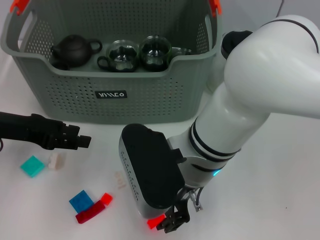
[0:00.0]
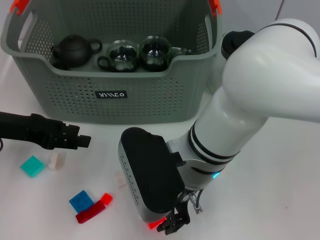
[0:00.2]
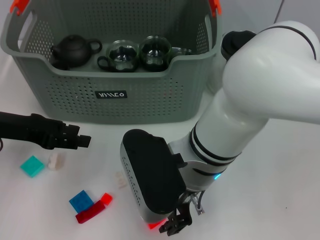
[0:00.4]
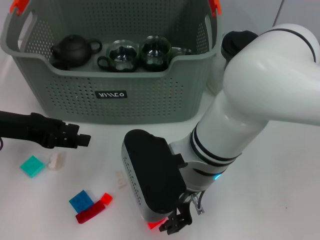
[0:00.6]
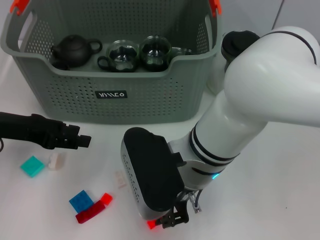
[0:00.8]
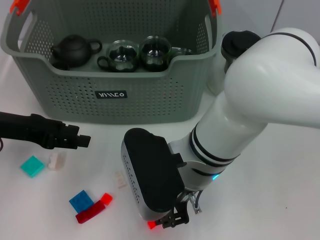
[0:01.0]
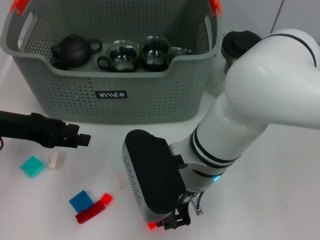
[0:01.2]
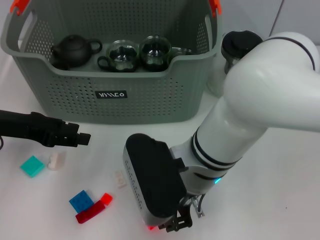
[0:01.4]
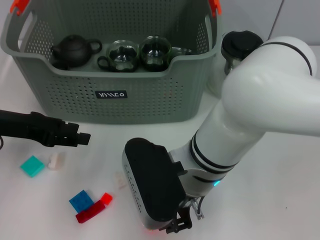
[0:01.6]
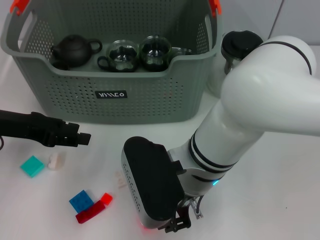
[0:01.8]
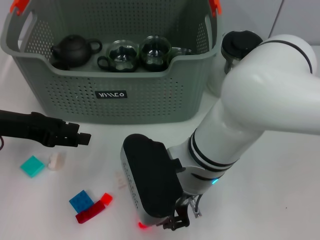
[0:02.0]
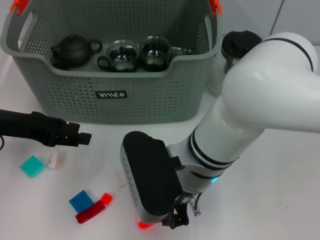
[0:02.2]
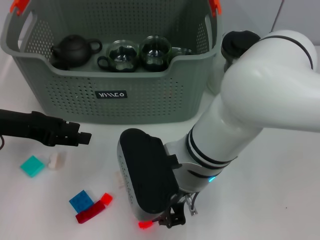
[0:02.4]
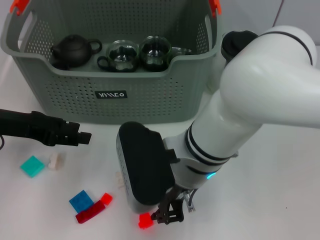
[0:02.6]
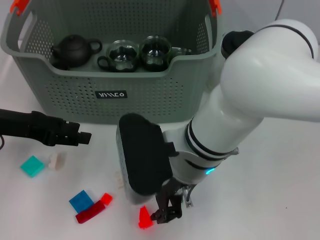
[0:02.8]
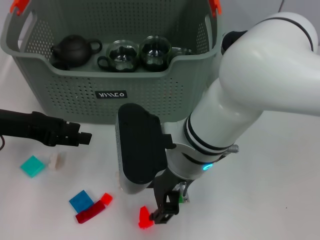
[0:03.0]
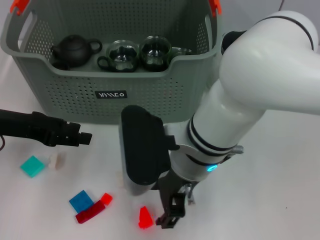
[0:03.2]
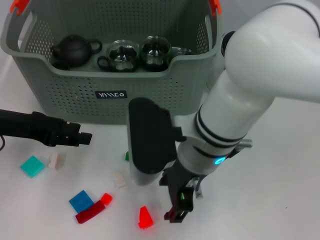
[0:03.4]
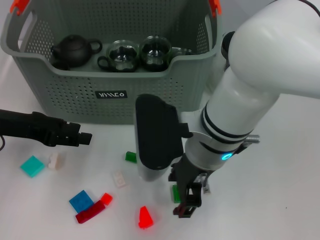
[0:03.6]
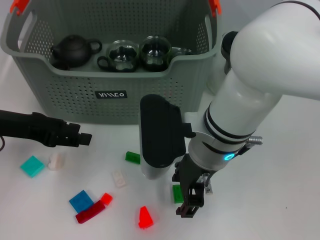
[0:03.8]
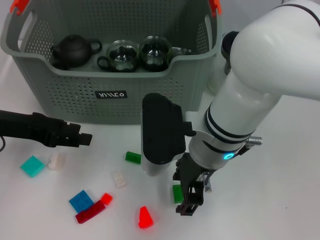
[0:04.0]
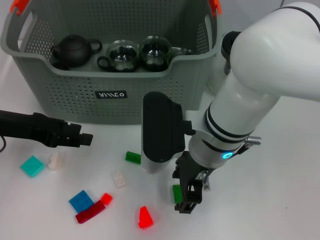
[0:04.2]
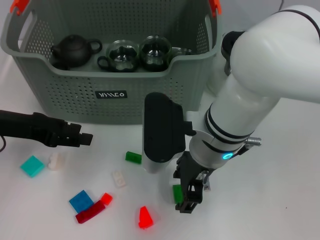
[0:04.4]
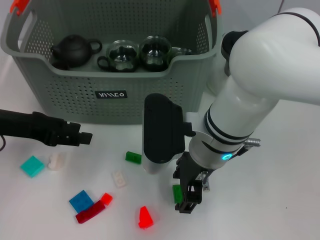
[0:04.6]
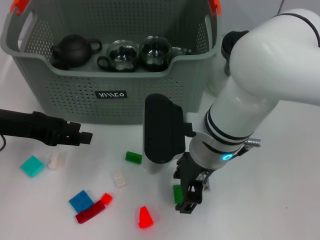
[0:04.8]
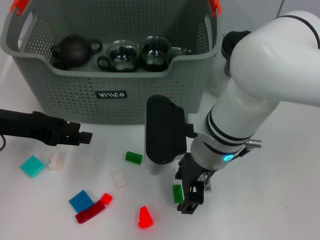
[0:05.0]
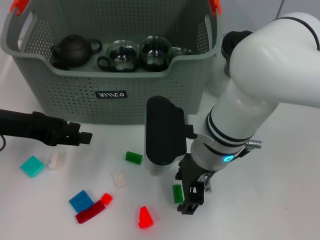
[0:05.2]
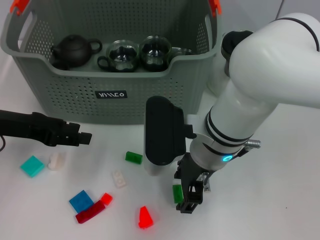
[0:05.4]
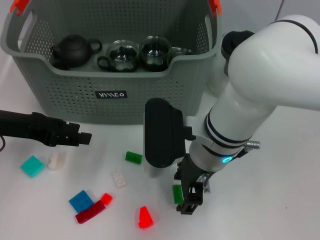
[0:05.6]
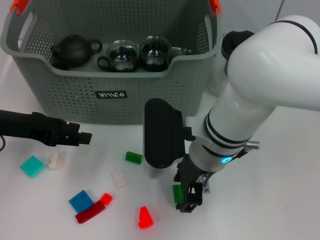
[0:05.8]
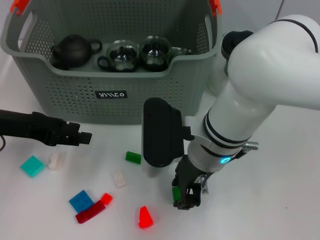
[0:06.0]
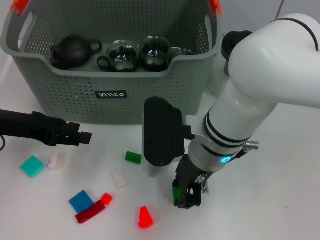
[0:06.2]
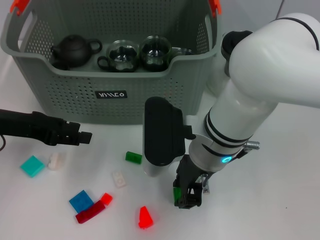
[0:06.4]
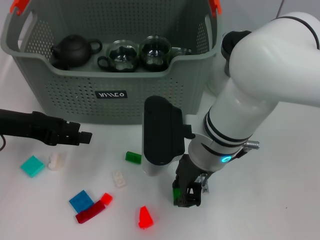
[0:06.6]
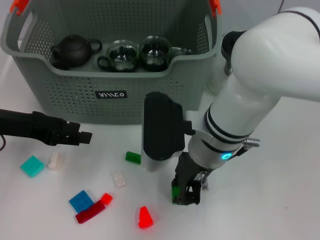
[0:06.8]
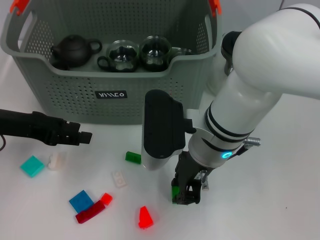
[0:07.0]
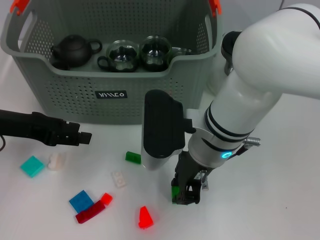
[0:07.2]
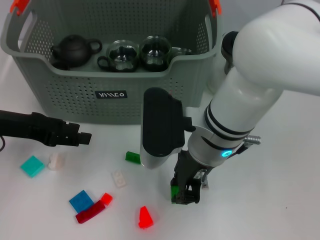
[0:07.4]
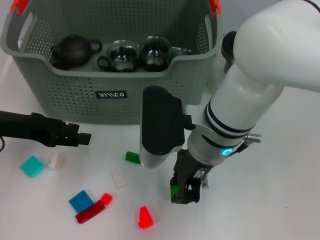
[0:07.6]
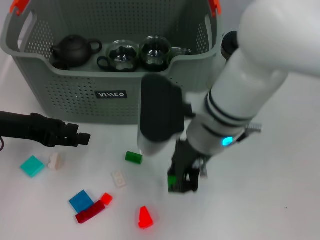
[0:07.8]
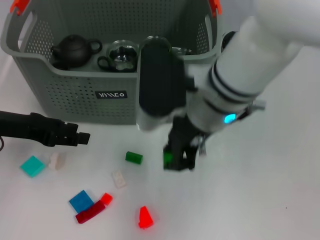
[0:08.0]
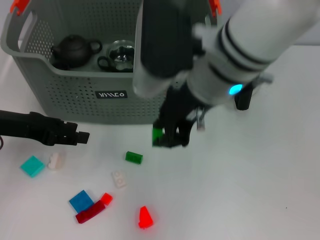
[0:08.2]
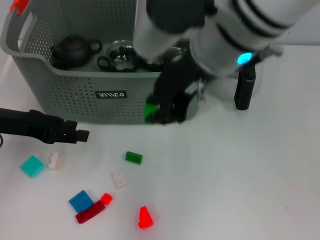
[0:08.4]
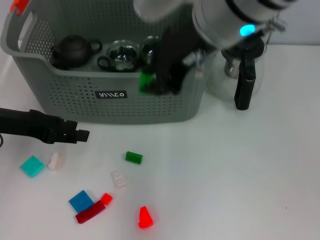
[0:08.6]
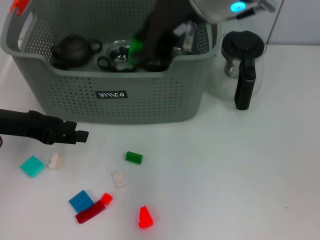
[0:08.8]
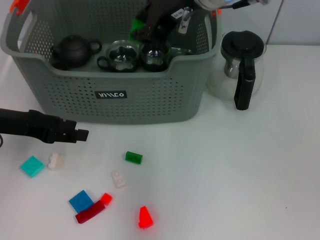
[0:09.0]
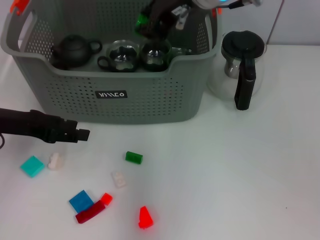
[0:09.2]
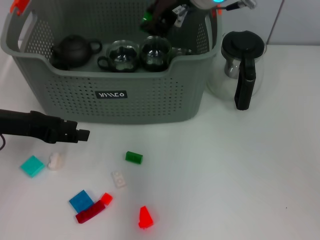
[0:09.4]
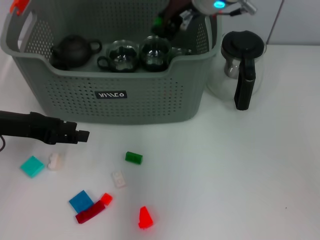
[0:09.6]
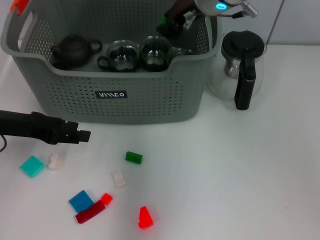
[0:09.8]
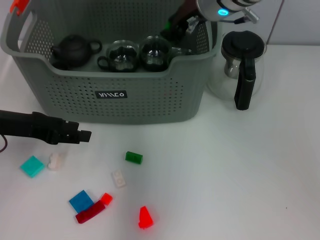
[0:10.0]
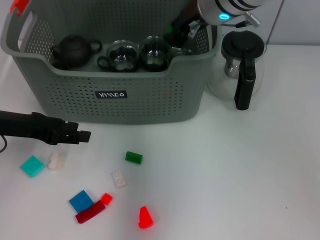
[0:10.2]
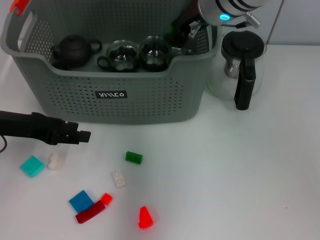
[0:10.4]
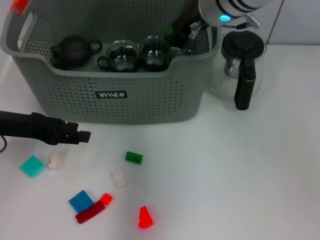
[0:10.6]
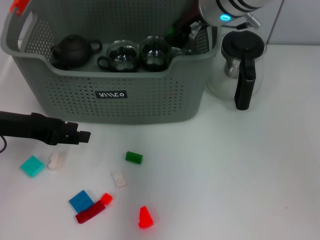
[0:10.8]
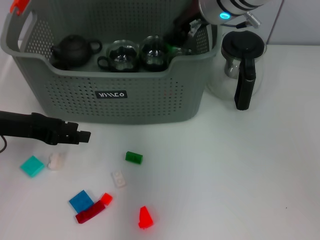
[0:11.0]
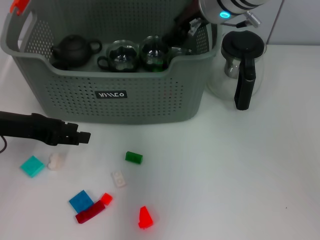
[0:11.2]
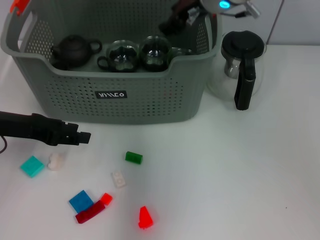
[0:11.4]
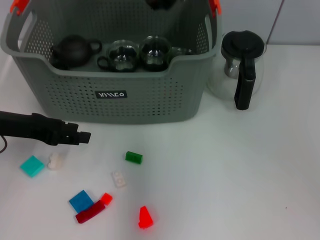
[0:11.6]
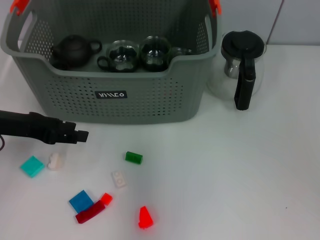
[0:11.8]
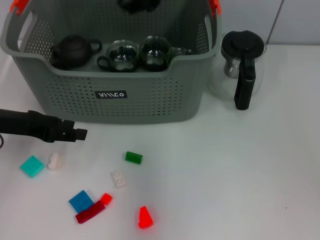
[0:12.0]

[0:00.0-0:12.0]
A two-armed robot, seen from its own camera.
Task of the whole recording: pick up the teacup on the table and place it into the storage bin, pick up the block on the table and place it into the storage bin.
Step, 0:00.0 to 0:07.6: Grasp the green block with right gripper.
Step, 0:07.8 to 0:11.4: Place the green block in the storage box with right gripper.
0:00.0 to 0:03.0: The grippers make only small movements.
0:03.0 to 0:04.4: The grippers stay close to where they were, moving slightly.
0:04.4 to 0:06.0: Both grippers stay put.
0:06.0 to 0:07.6: There are only small adjustments of the grippers.
0:07.6 to 0:09.0: The right gripper shifts some 15 cm upward and forward.
0:09.0 to 0:10.4: The right gripper heads downward and forward, covering some 10 cm.
0:10.4 to 0:12.0: The right gripper travels upward and backward by some 10 cm.

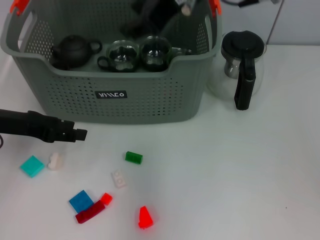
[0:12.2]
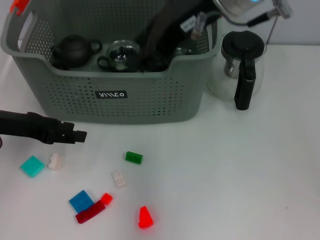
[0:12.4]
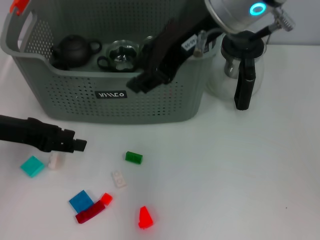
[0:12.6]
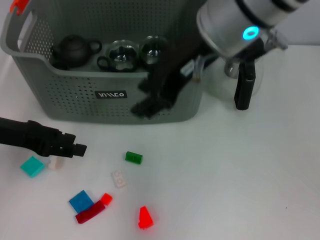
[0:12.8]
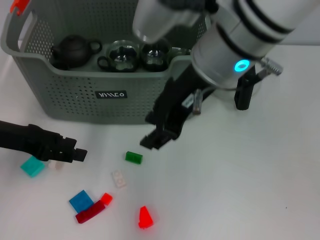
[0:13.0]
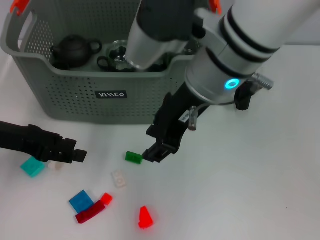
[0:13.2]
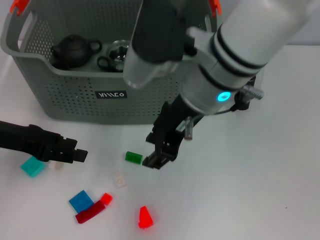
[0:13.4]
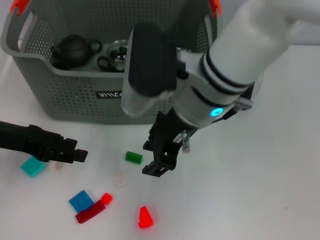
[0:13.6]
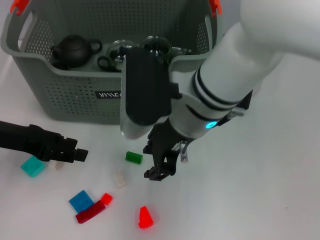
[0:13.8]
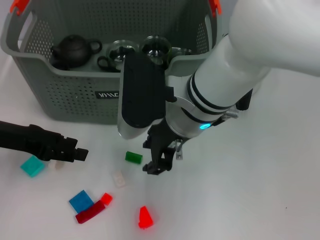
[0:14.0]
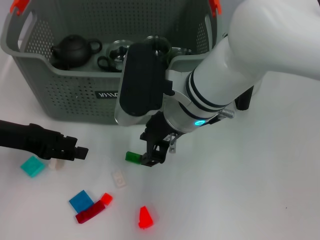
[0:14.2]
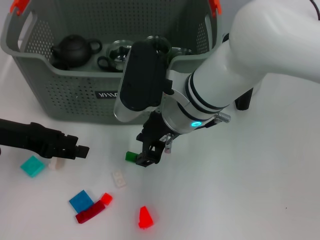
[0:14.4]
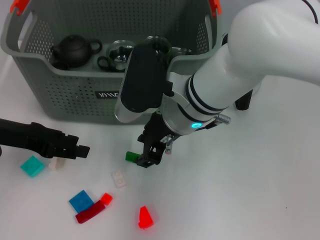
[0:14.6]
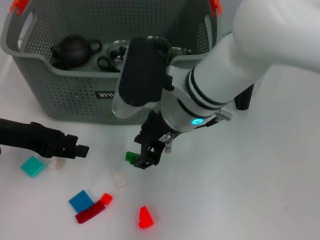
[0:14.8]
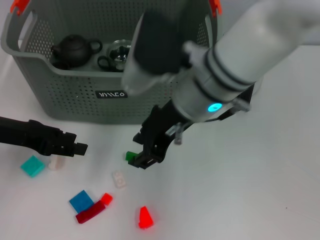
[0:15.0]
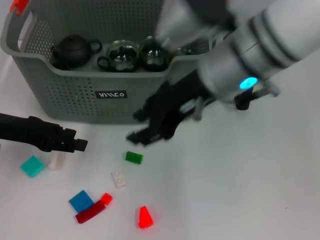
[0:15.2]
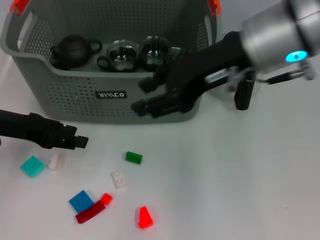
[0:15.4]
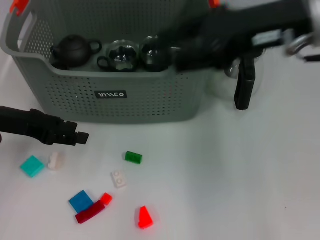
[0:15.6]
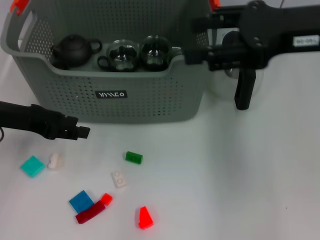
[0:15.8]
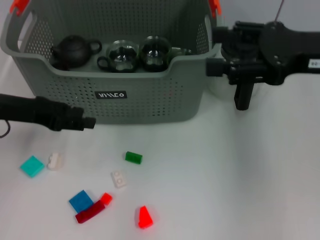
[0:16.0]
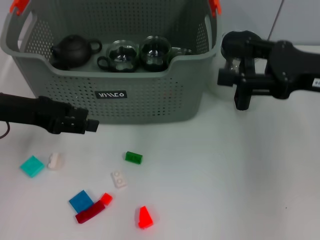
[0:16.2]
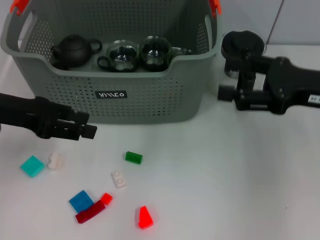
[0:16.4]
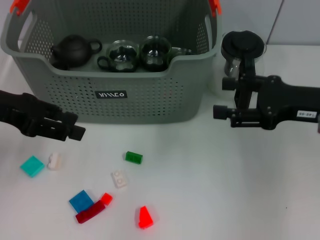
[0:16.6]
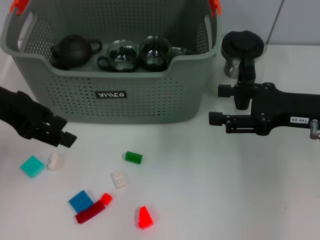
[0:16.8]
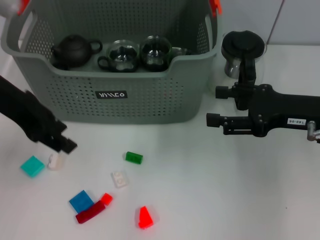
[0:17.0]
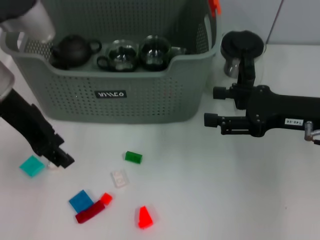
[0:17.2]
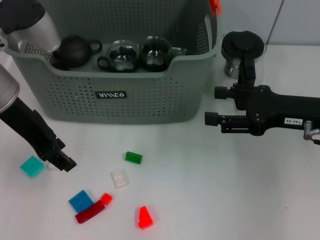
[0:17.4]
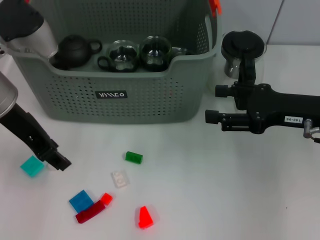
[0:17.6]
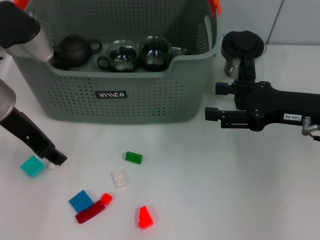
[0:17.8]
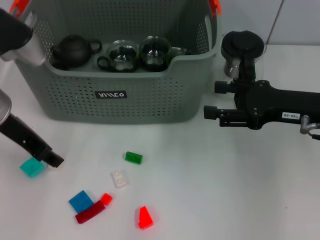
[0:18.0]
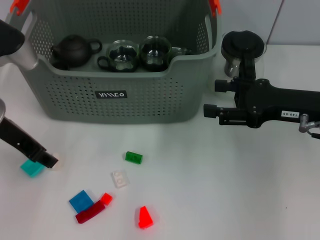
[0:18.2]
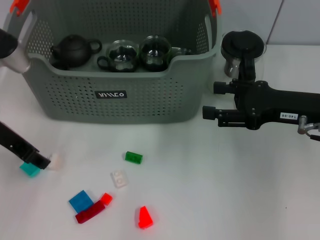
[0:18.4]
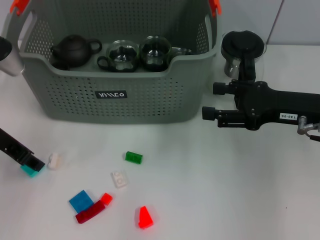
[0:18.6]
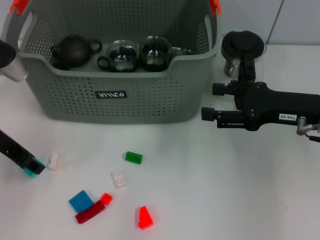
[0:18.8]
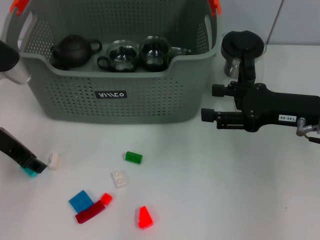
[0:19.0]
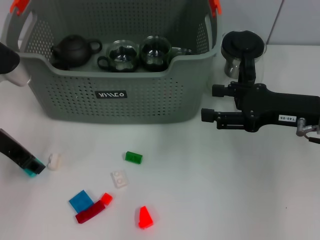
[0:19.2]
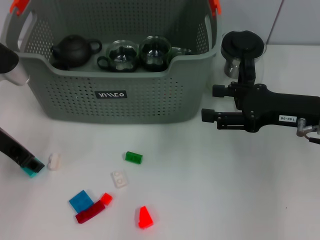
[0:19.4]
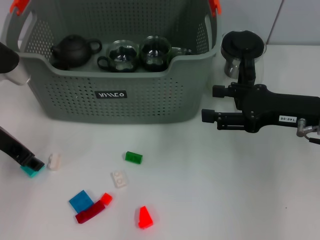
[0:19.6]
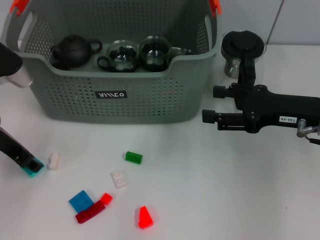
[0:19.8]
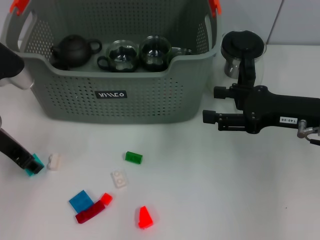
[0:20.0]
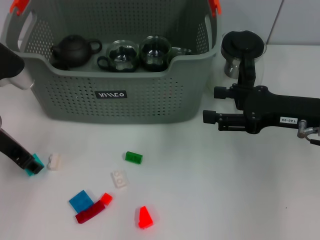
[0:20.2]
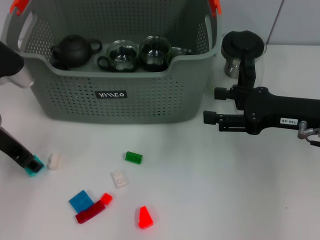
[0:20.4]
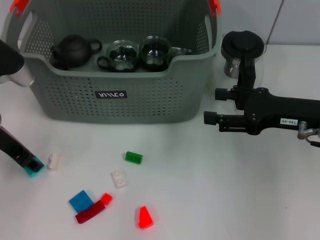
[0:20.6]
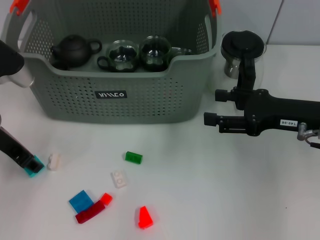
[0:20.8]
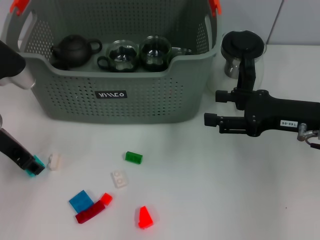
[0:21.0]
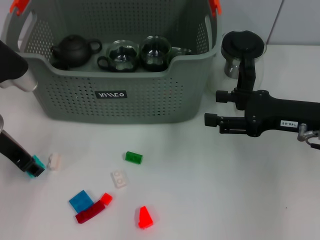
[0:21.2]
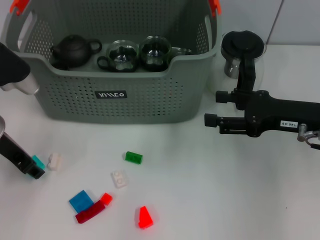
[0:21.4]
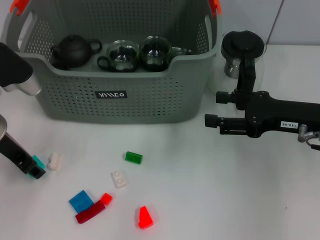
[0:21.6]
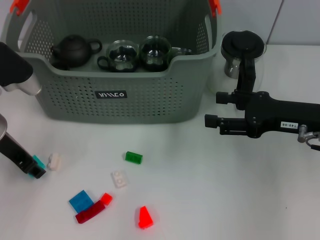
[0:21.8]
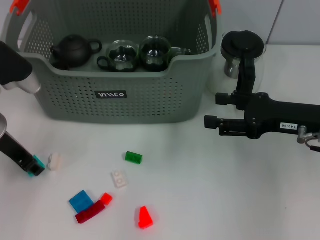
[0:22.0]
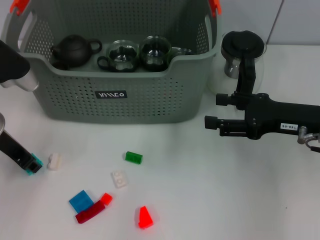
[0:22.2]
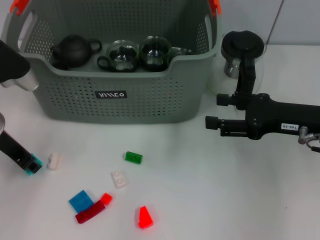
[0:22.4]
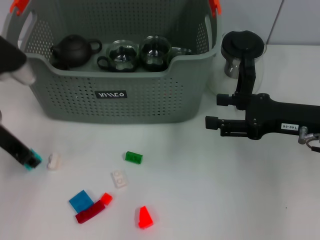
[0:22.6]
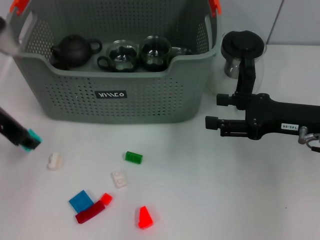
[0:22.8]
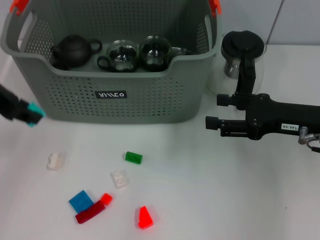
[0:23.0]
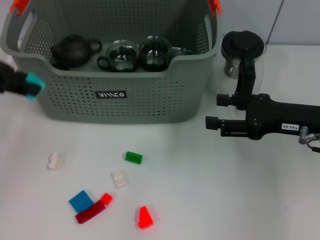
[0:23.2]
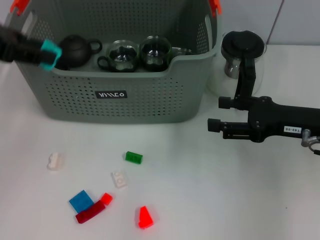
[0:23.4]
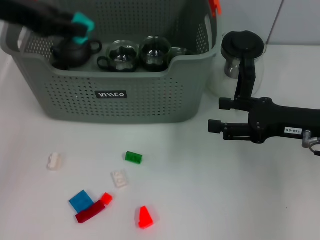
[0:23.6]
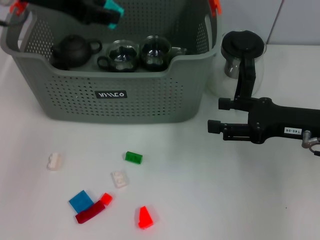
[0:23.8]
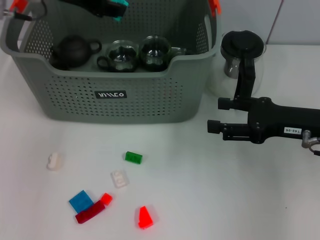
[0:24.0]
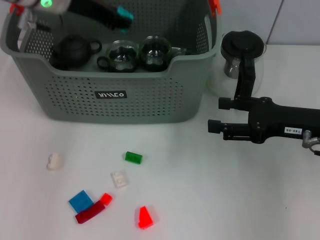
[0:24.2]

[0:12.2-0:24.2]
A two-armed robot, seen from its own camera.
Task of the whole recording: pick up the teacup on the table and place it into the storage bin, pick up the block on the table and place it into the storage bin.
Step, 0:12.2 to 0:22.6: Grasp the light blue block with left gripper.
0:12.2 to 0:13.8: The right gripper goes some 15 cm downward.
0:13.8 to 0:15.2: The right gripper is displaced upward by some 5 cm.
0:15.2 to 0:16.6: The left gripper is displaced upward by roughly 5 cm, while the right gripper is displaced to the right and downward by about 20 cm, and opens its fingers.
0:16.6 to 0:18.2: The left gripper moves approximately 5 cm.
0:18.2 to 0:19.8: The left gripper ends up roughly 5 cm from where it was.
0:19.8 to 0:22.6: The two grippers keep their place.
0:22.6 to 0:24.2: The left gripper goes roughly 15 cm forward, upward and to the right.
